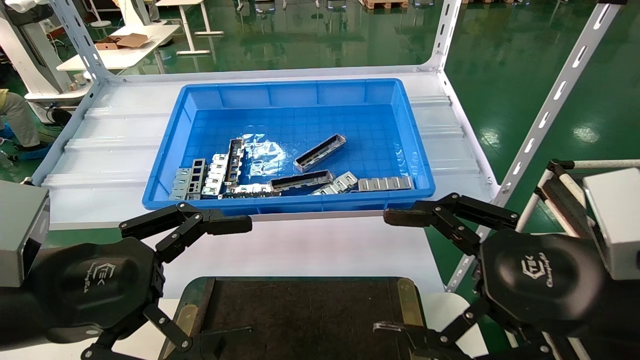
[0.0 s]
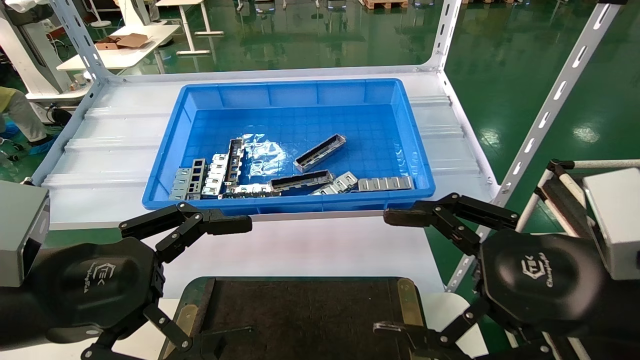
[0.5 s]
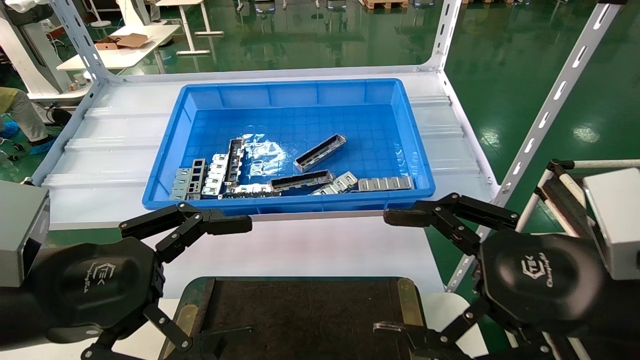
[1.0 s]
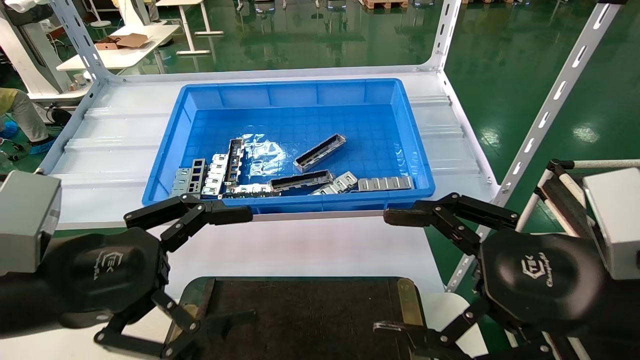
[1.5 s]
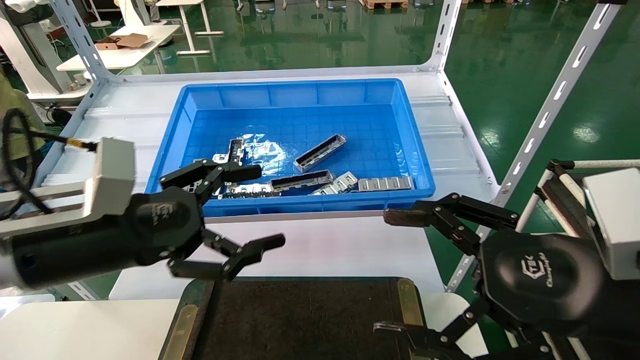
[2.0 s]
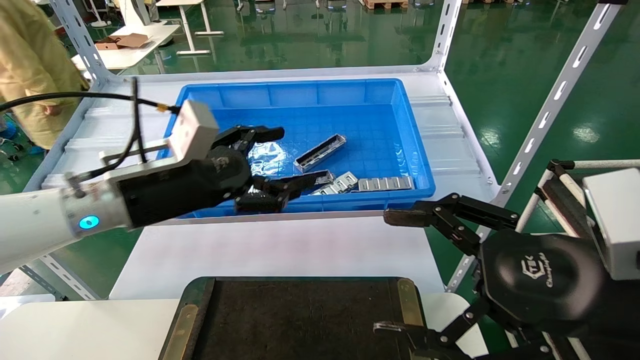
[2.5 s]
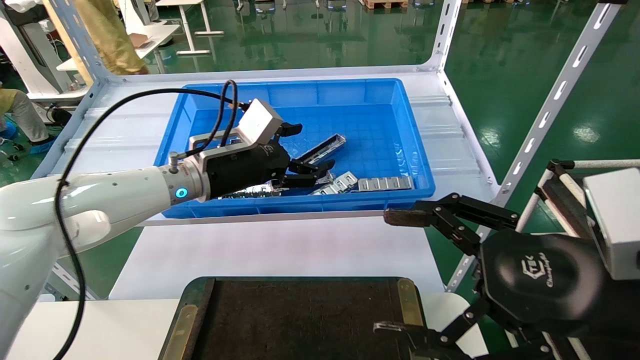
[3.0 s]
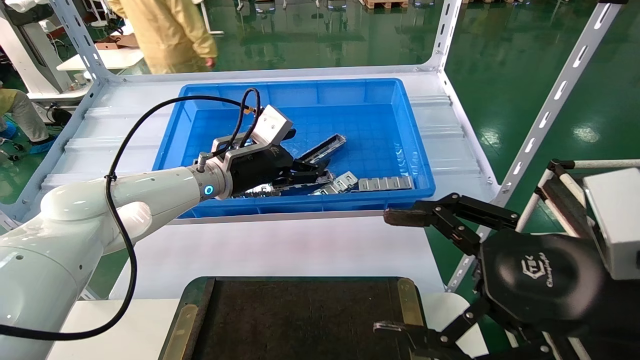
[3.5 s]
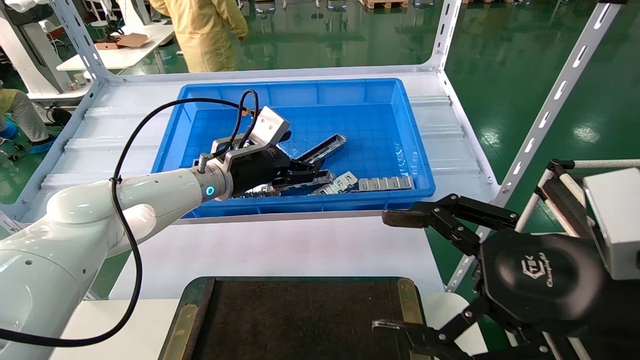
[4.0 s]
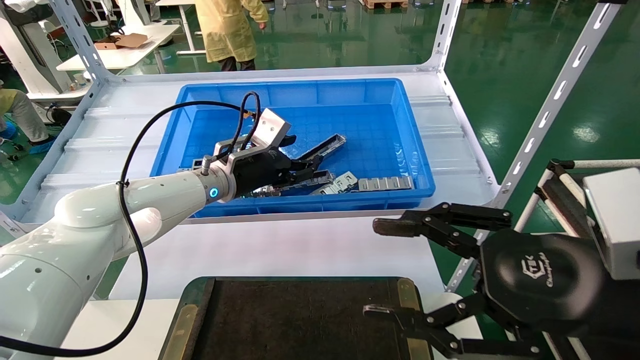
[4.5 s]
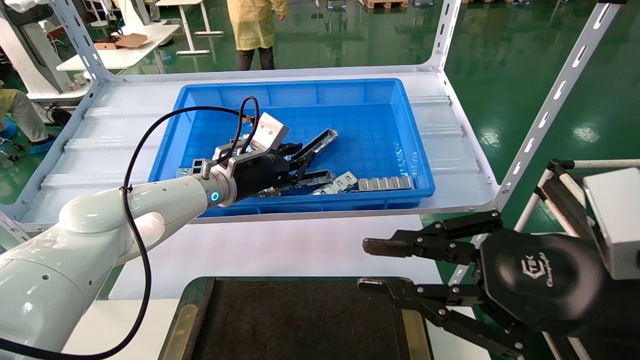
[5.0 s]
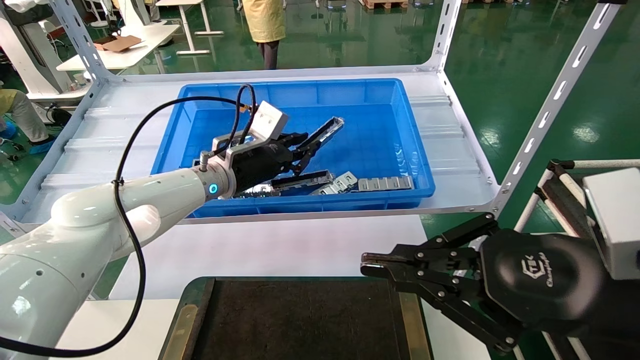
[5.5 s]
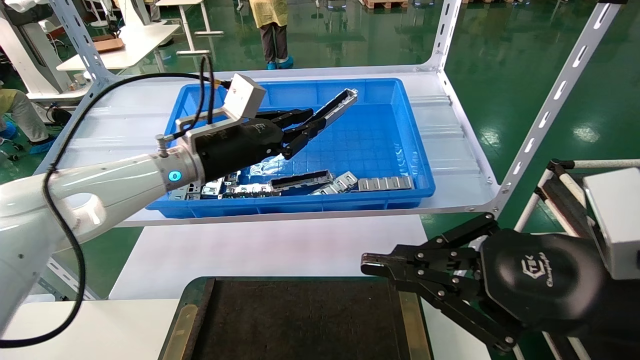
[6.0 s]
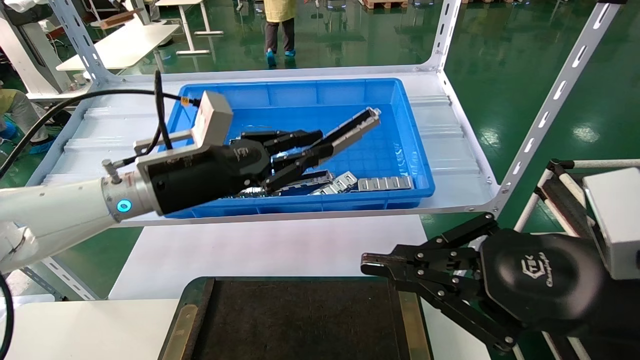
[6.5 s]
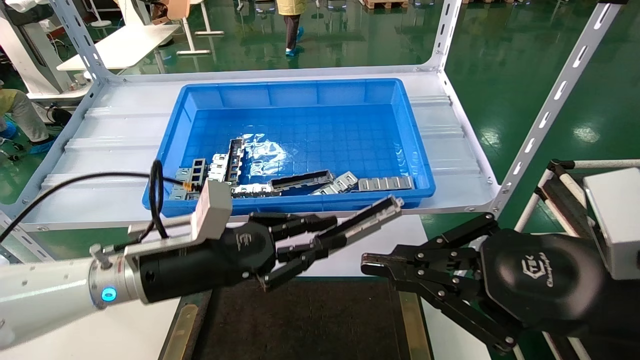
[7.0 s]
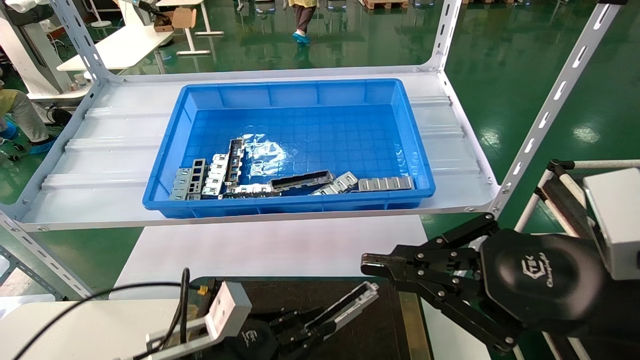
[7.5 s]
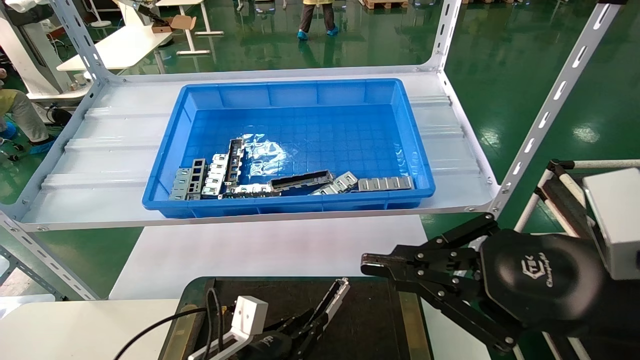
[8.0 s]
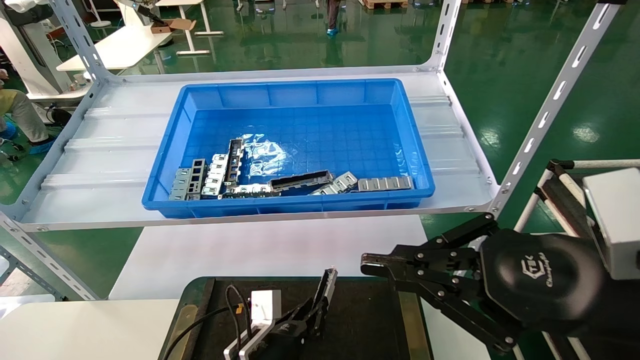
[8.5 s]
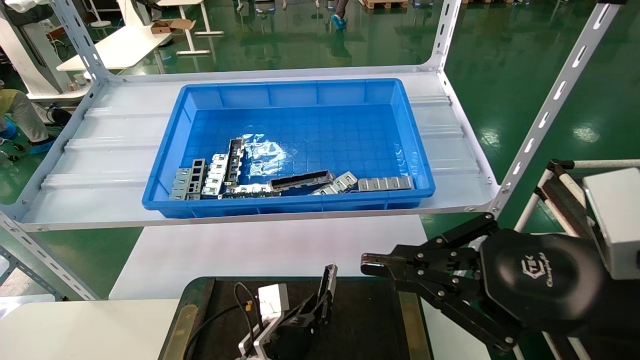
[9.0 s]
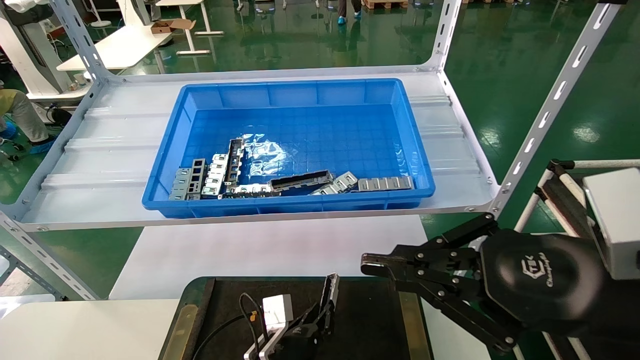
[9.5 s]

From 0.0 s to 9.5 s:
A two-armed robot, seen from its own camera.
Task of the whole recording: Grasp the part with one hand and place it on the black container.
Step, from 2.0 s to 5.0 s: Pick up the front USB bracket from the feeding area.
From 0.0 s to 2.0 s: The left gripper heads forward, covering some 5 cm.
From 2.0 s to 4.0 s: The left gripper is displaced forward and to the right by about 25 cm.
From 4.0 s to 5.5 s: The left gripper closes up. Meanwhile the right gripper closes up.
From 5.5 s to 7.5 s: The left gripper travels downward and backward by about 30 cm.
From 7.5 s to 9.5 s: The left gripper heads downward, to the right and forward, covering some 20 cm.

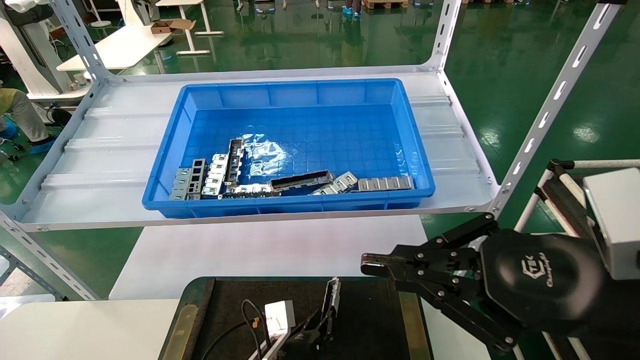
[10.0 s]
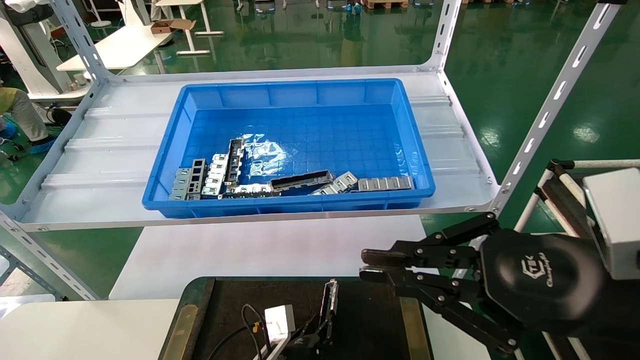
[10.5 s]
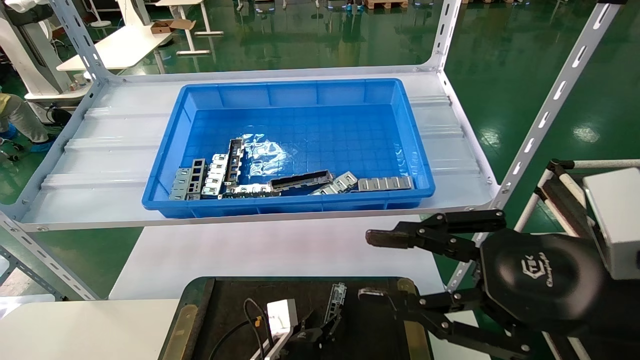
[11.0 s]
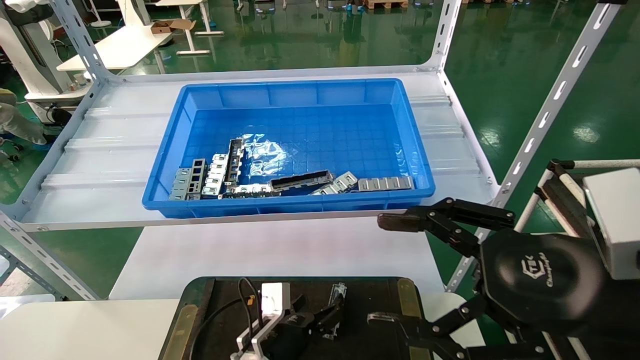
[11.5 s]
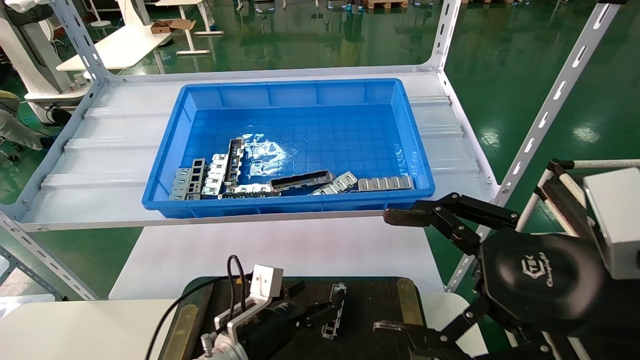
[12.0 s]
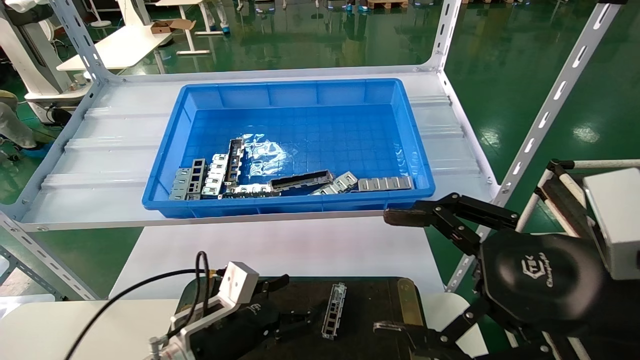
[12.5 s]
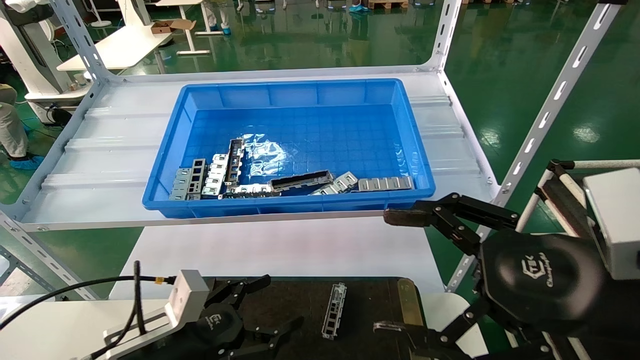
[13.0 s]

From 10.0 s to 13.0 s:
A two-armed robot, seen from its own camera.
Task of the whole recording: Grasp the part with one hand and place it on the black container.
From 10.0 s to 11.5 s: The left gripper opens its fingers; the right gripper opens its fingers.
From 11.5 s to 13.0 s: The left gripper shifts roughly 20 cm to the left, upward and backward.

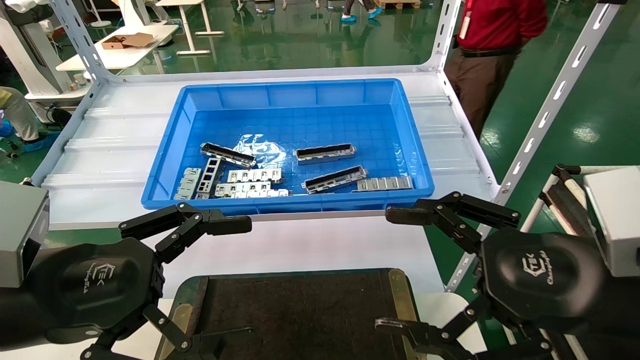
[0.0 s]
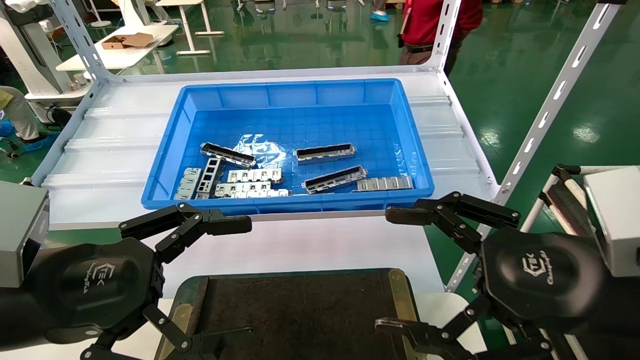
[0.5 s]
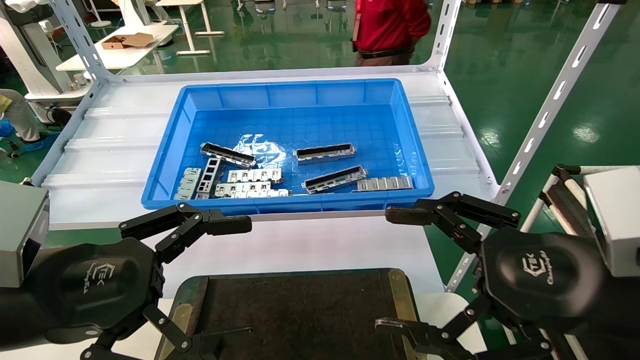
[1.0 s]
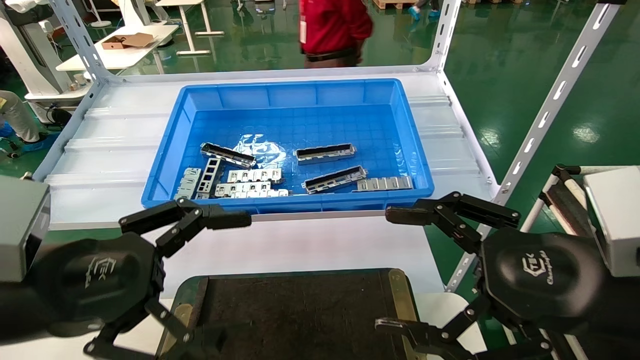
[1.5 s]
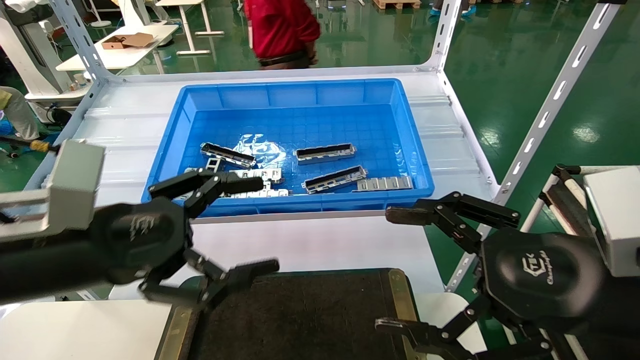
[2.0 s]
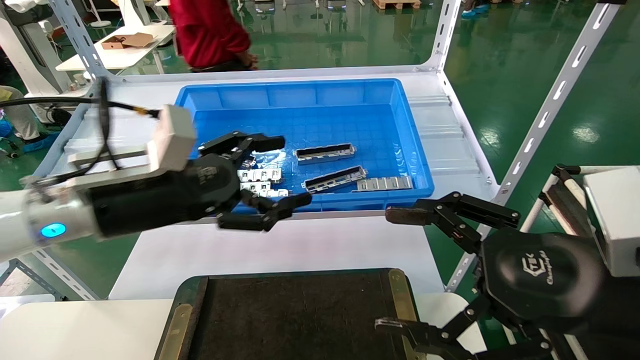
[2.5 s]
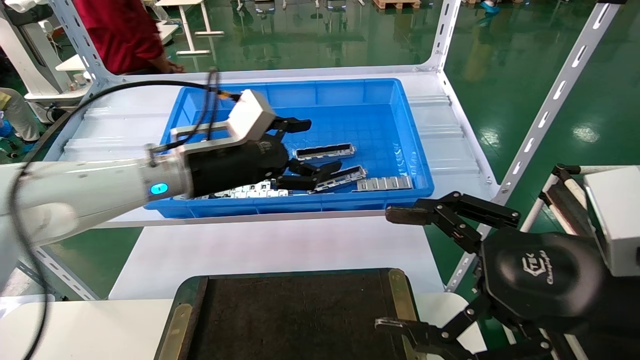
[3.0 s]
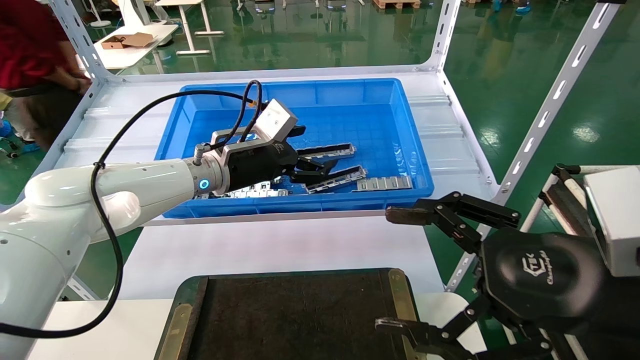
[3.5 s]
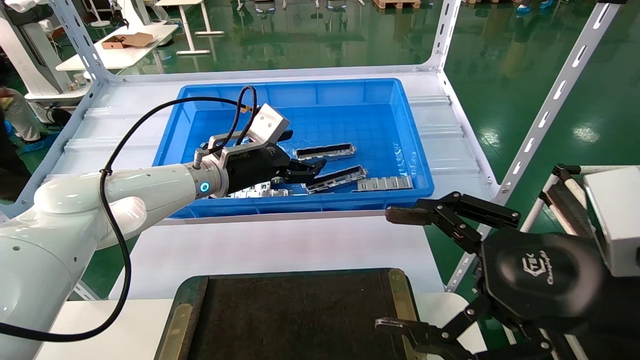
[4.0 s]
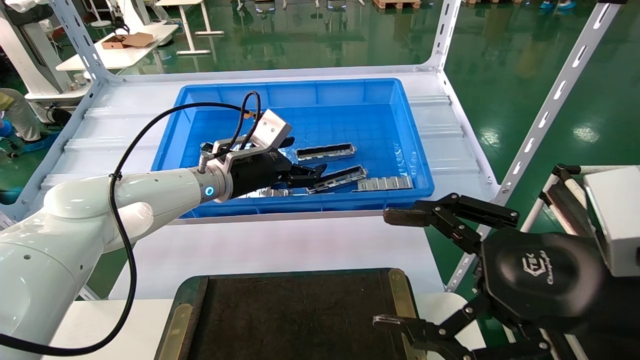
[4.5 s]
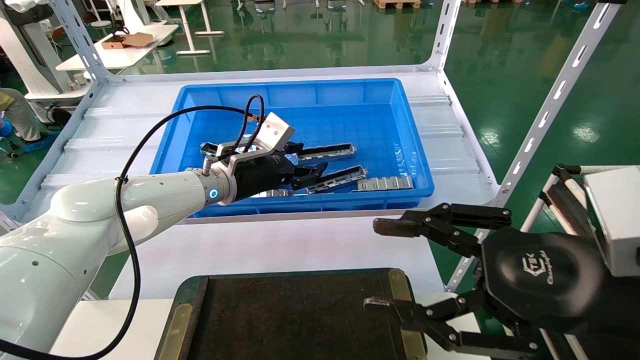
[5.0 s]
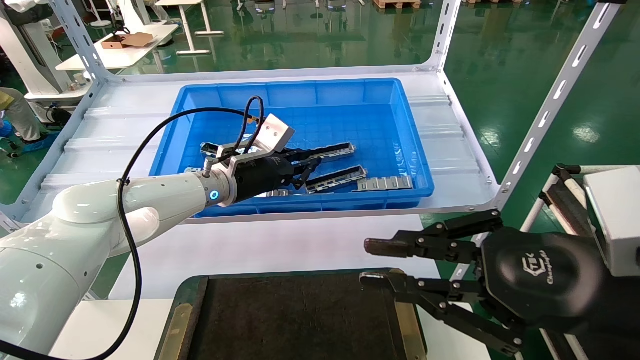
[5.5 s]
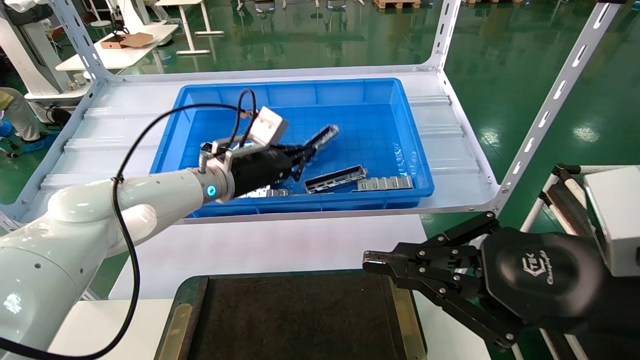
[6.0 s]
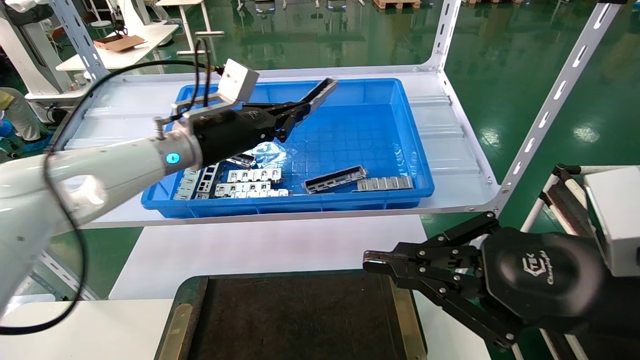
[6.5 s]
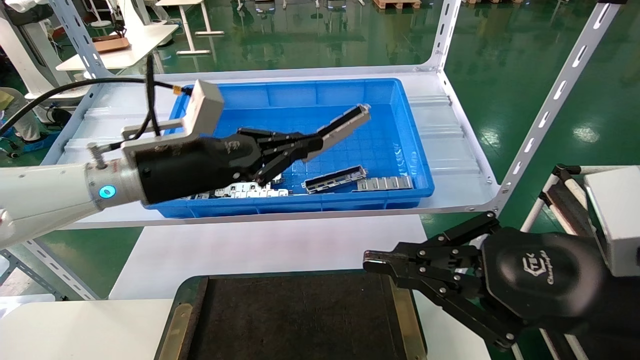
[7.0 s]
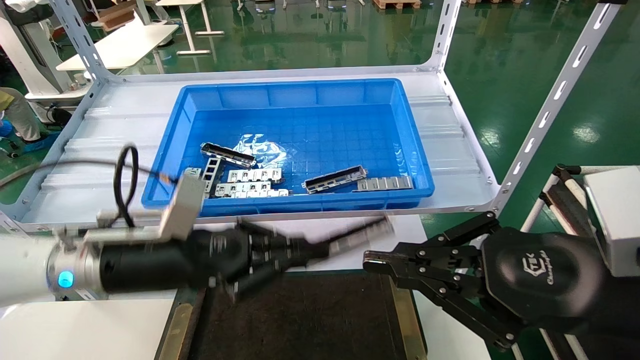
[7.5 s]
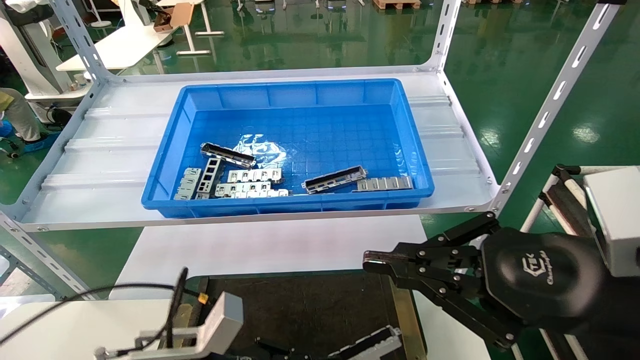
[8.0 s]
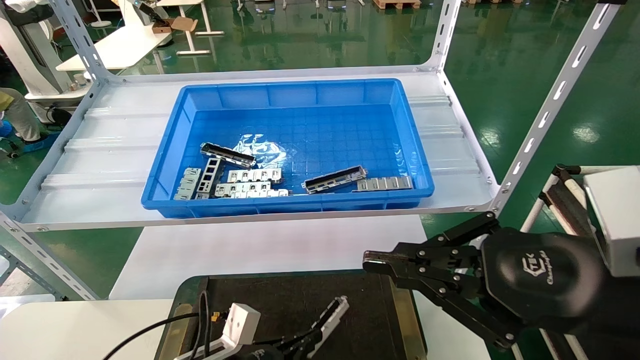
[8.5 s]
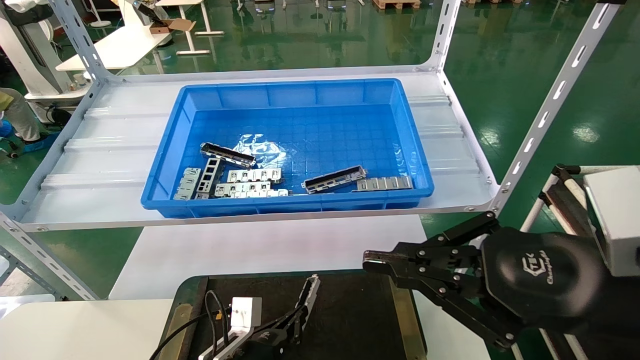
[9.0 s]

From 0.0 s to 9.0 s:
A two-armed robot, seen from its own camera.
Task of the whole recording: Grasp the part with one hand and place it on the black container.
Step, from 2.0 s to 5.5 s: Pick up the front USB bracket from the feeding area.
From 0.0 s to 2.0 s: The left gripper changes place by roughly 5 cm.
From 2.0 s to 4.5 s: The left gripper travels forward and to the right by roughly 25 cm.
From 4.5 s to 7.0 s: The right gripper closes its fingers, while the left gripper travels backward and to the left by some 10 cm, and closes.
From 7.0 s to 9.0 s: The left gripper moves downward, roughly 35 cm.
